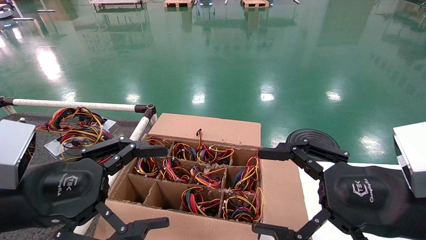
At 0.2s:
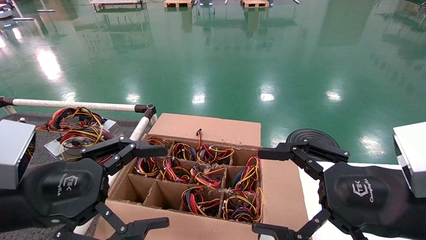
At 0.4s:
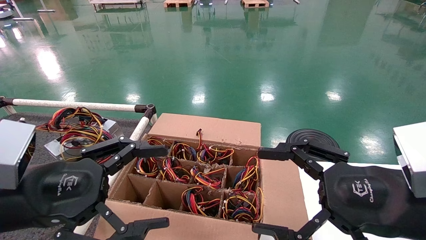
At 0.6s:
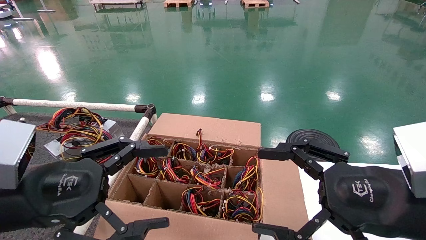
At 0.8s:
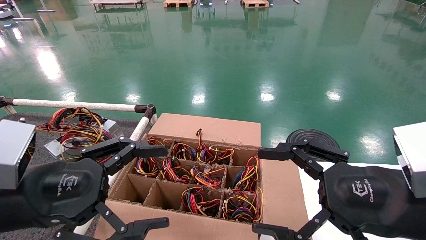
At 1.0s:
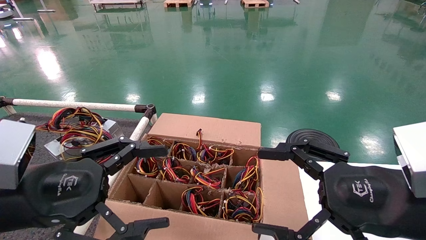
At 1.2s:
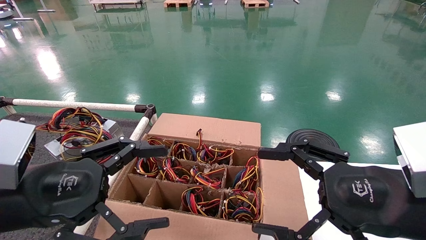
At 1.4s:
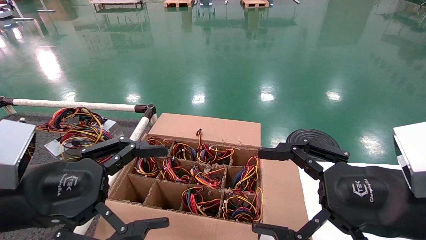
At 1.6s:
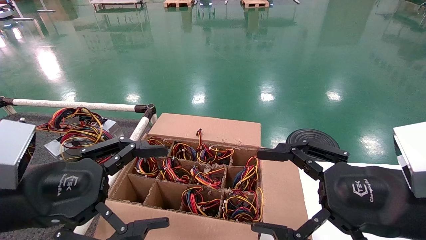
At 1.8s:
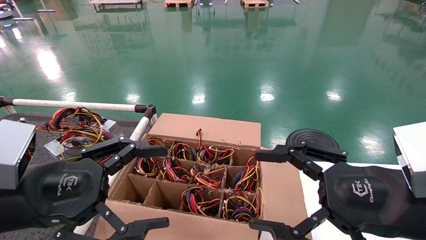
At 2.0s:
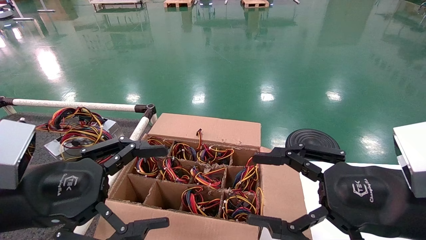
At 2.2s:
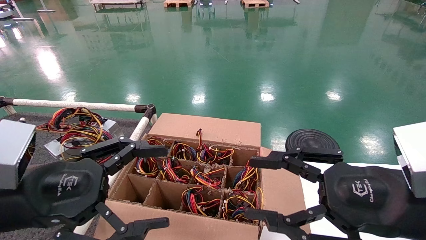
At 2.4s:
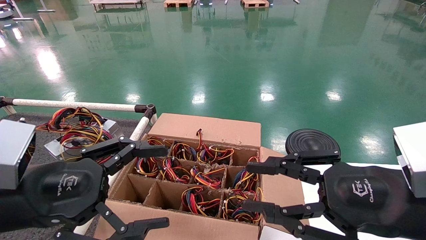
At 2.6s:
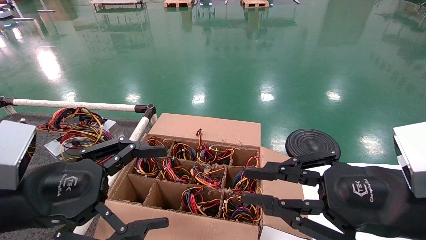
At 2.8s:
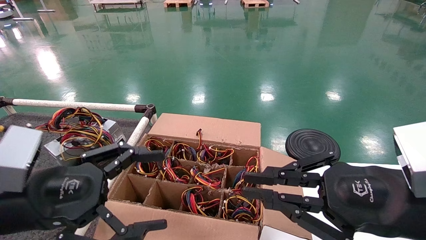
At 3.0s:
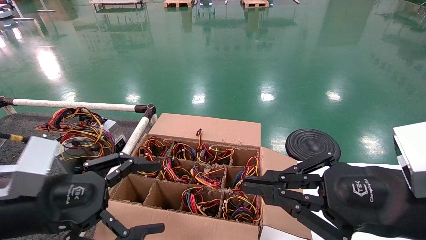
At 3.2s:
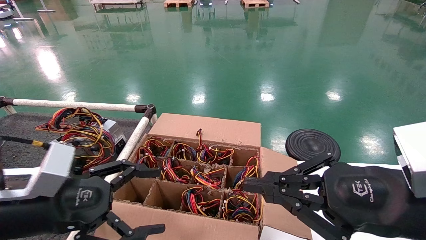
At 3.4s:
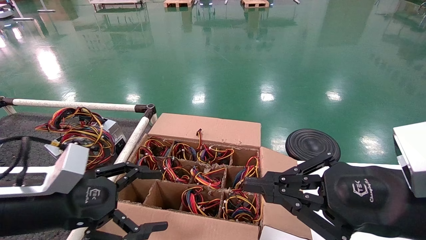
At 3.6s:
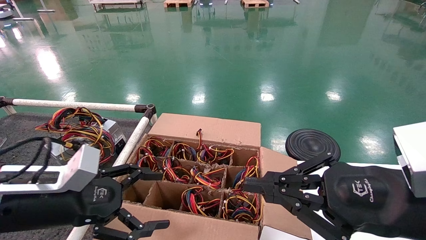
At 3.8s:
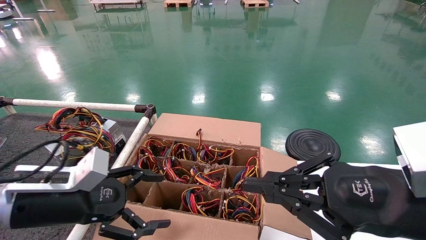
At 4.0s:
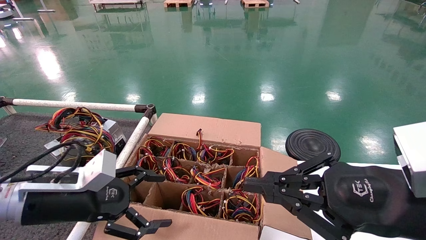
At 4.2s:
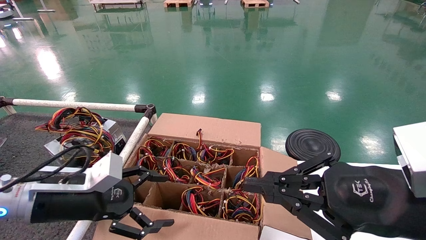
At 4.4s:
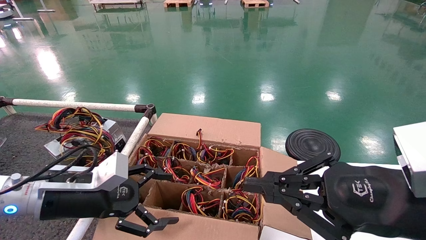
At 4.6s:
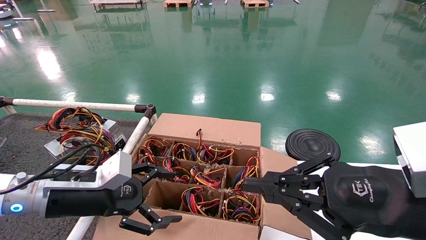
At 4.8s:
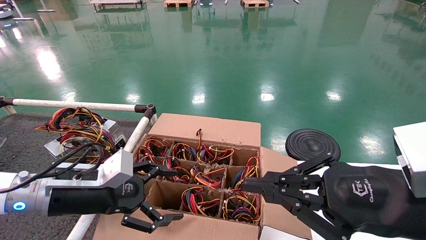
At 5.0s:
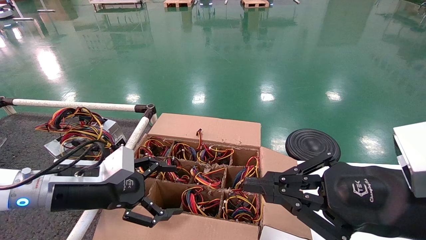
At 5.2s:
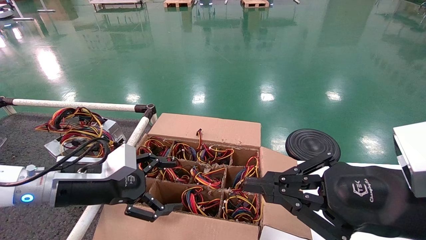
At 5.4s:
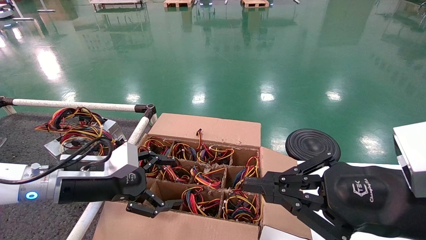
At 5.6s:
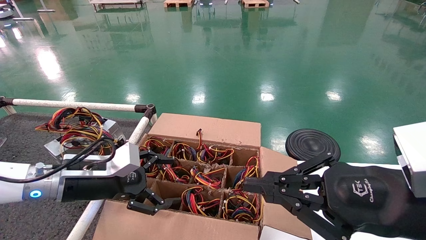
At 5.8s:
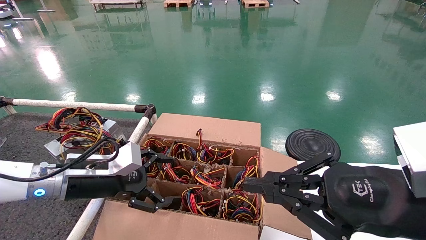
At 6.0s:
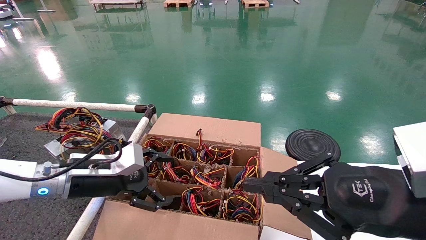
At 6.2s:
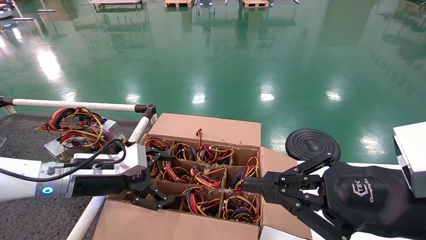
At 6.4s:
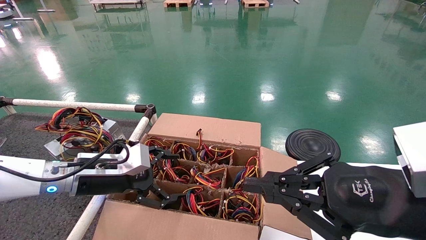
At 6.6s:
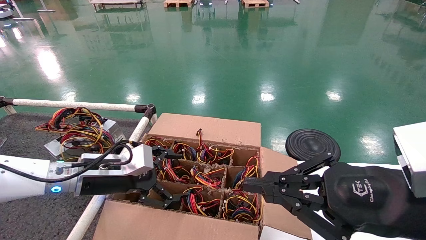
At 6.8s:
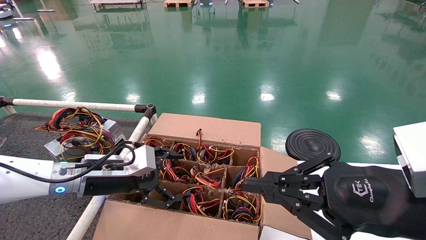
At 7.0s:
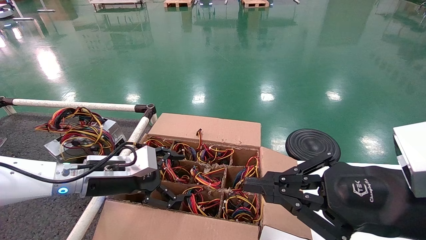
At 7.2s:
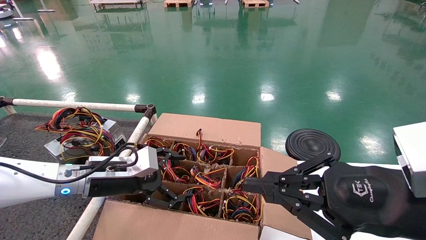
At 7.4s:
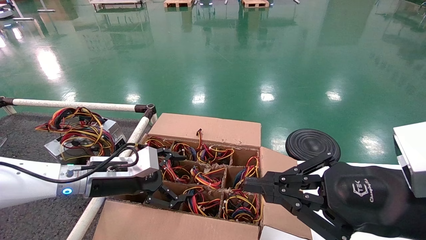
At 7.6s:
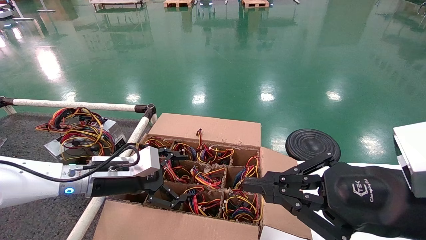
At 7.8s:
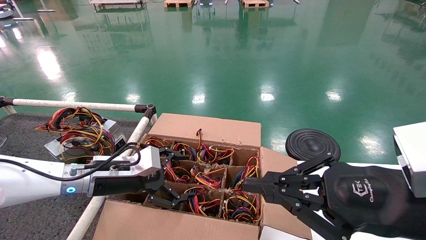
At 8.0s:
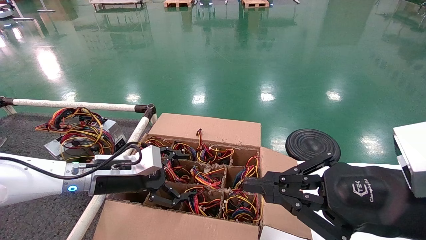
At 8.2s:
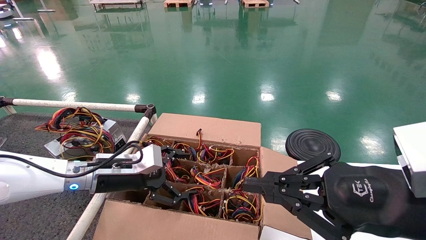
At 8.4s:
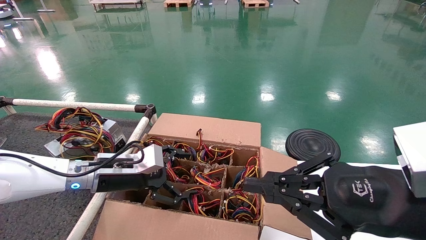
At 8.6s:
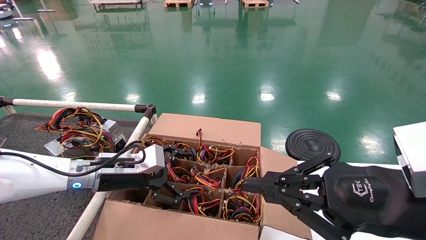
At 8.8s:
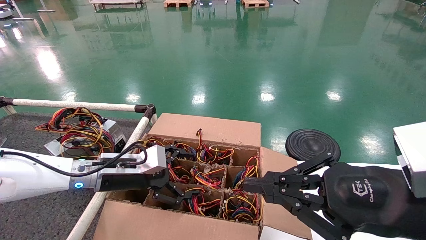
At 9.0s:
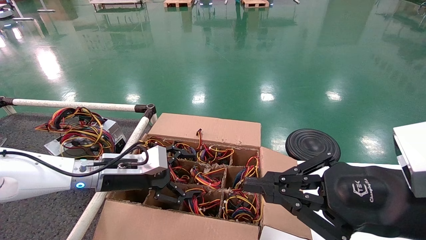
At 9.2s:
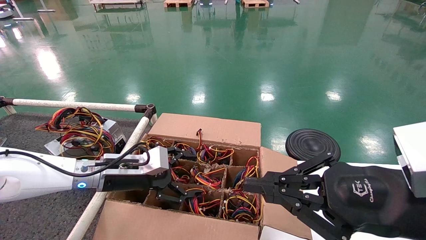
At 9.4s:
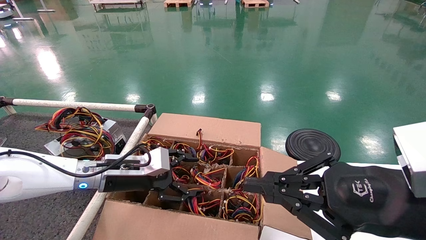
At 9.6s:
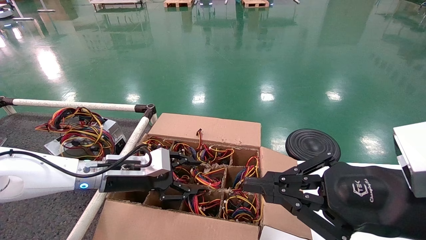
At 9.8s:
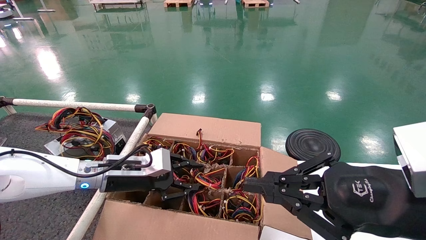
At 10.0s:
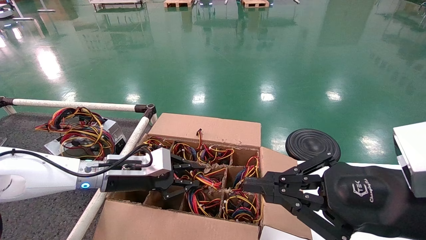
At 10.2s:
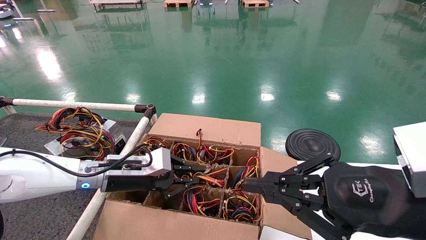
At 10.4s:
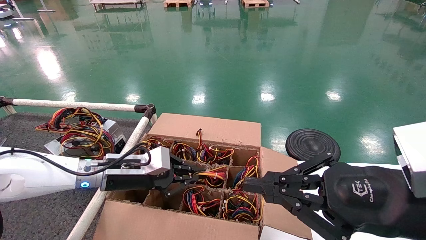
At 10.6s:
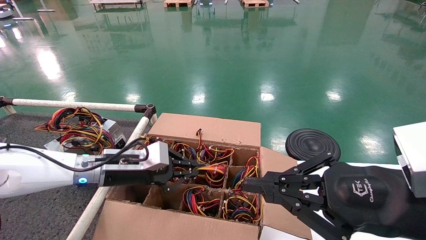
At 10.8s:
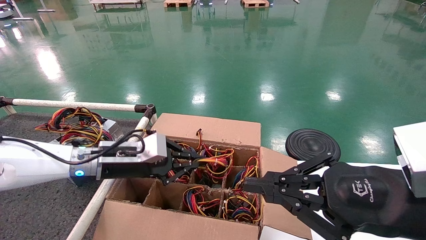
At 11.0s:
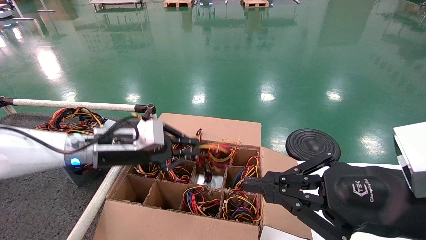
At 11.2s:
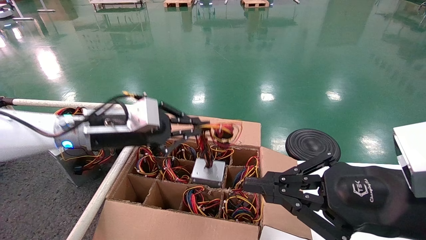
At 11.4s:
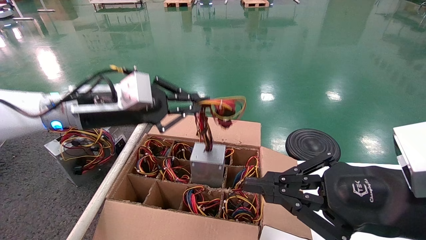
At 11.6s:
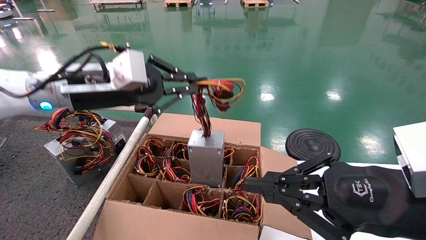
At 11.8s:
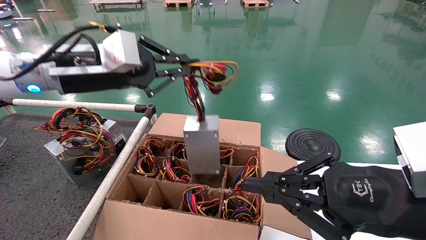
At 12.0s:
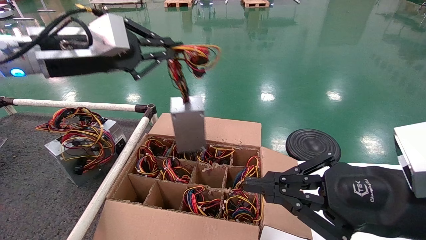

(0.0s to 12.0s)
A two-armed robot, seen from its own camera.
Step, 3.0s - 10.2s: Grab and lift the power supply from the large box.
0.0s - 1.6s: The two grippers keep their place.
1.6s - 3.0s: The right gripper closes its fingers.
3.0s - 4.4s: The left gripper heads forward, covering approximately 5 cm.
4.4s - 6.0s: The left gripper travels forward by some 5 cm.
6.0s - 9.0s: The grippers make only small movements.
9.0s - 10.4s: The left gripper closes.
10.4s - 12.0s: The left gripper travels upward by about 25 cm.

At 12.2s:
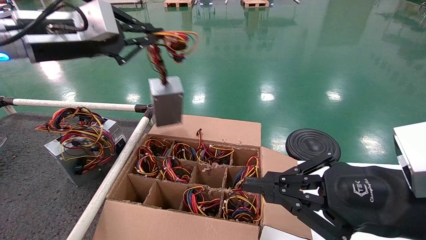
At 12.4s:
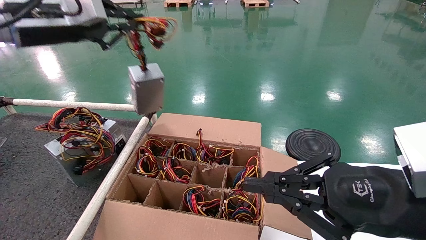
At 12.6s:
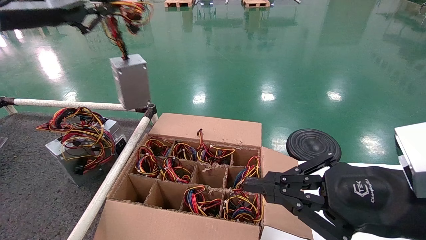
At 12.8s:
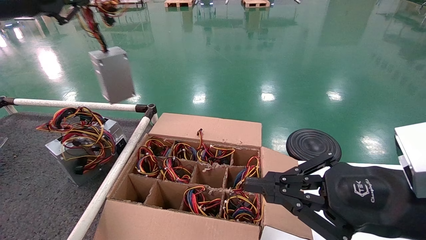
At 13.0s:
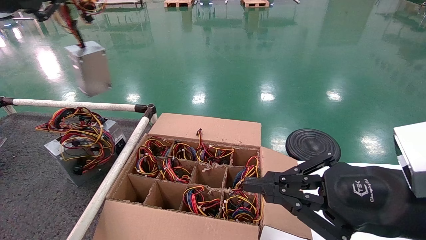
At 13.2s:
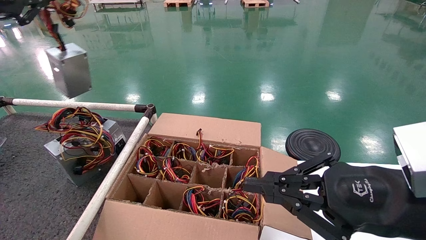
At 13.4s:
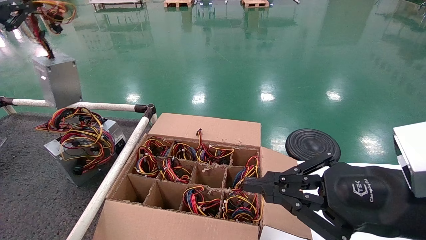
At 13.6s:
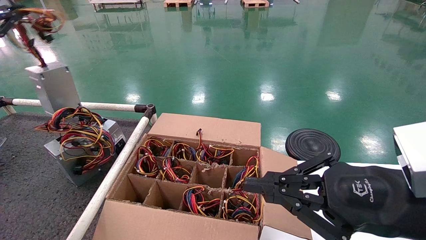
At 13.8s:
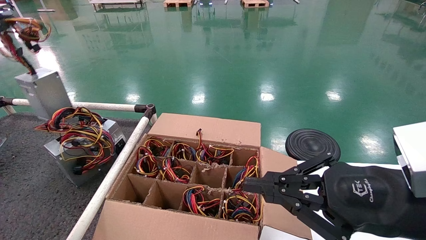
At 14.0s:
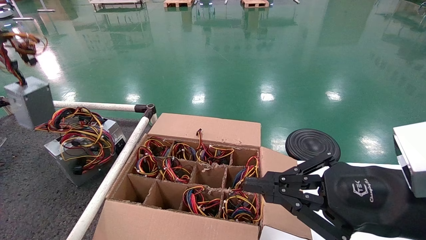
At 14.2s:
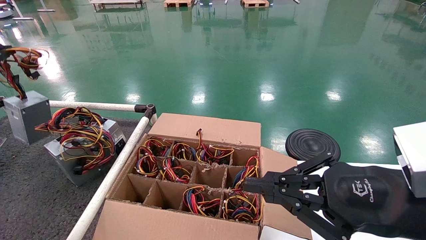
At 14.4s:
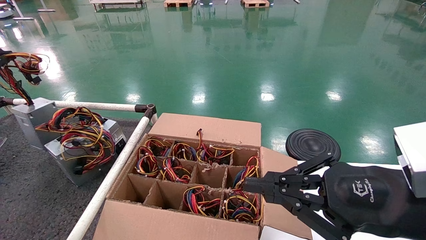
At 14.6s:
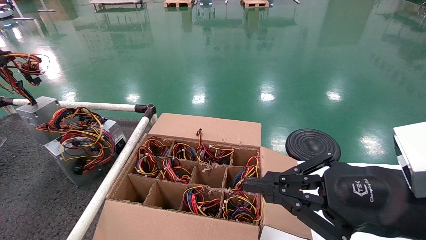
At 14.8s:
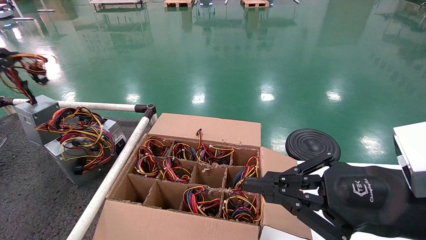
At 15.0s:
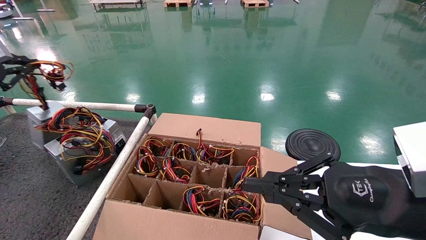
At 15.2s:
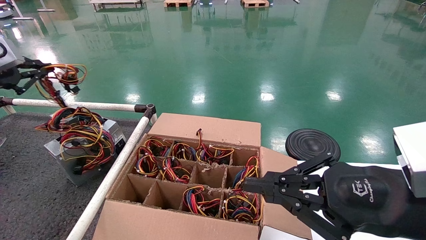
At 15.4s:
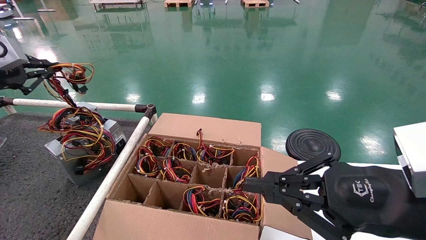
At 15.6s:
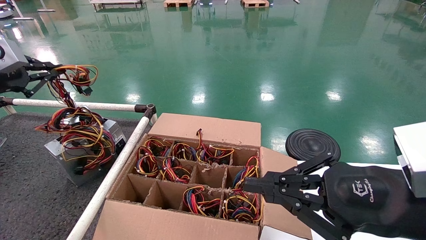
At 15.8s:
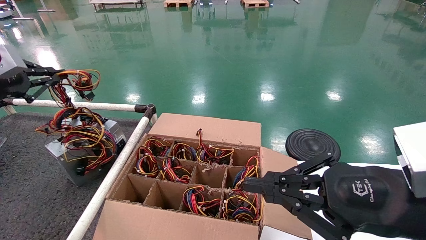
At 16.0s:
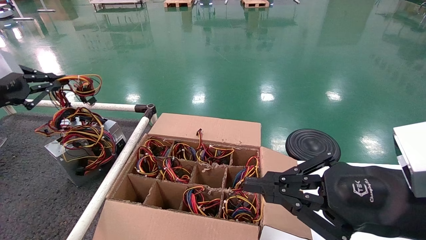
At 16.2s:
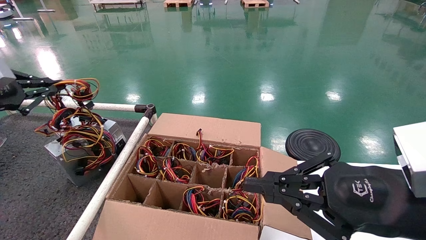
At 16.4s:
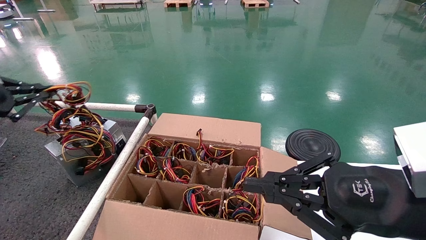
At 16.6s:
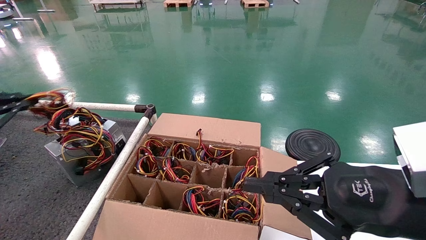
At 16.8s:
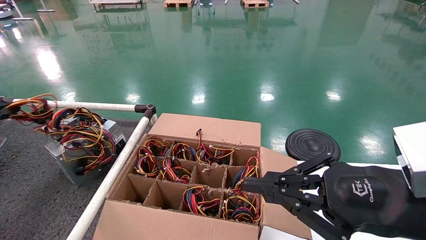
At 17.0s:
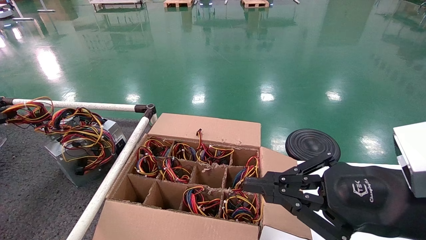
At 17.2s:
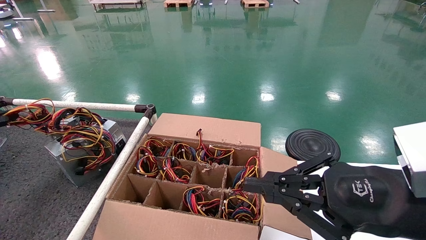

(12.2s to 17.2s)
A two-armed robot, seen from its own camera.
12.2s - 13.8s: The left gripper is displaced to the left by about 20 cm.
13.8s - 15.6s: The left gripper travels downward by approximately 10 cm.
15.6s - 17.2s: The left gripper shifts about 15 cm downward, to the left and backward.
